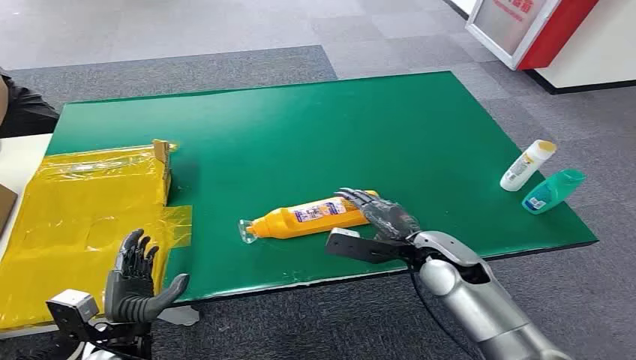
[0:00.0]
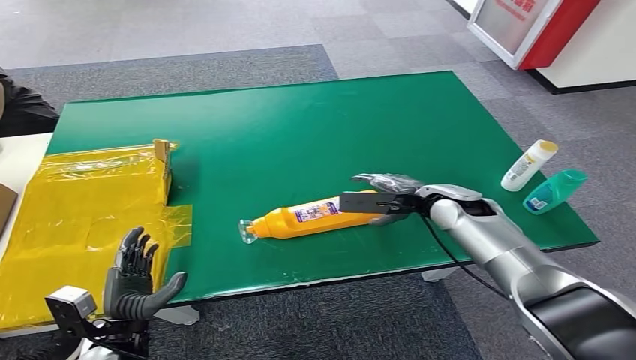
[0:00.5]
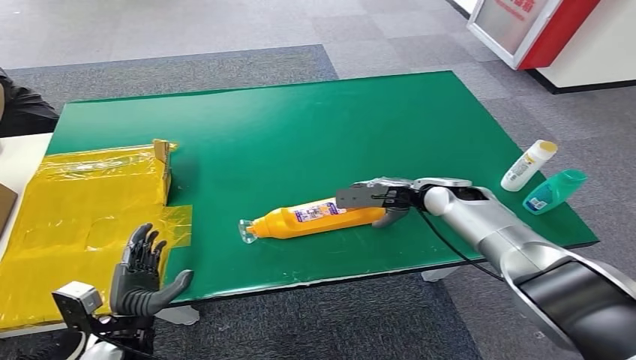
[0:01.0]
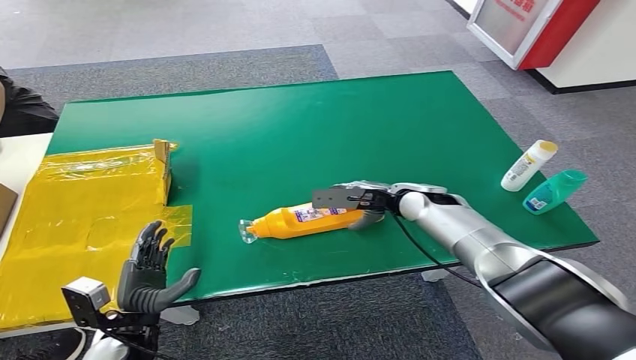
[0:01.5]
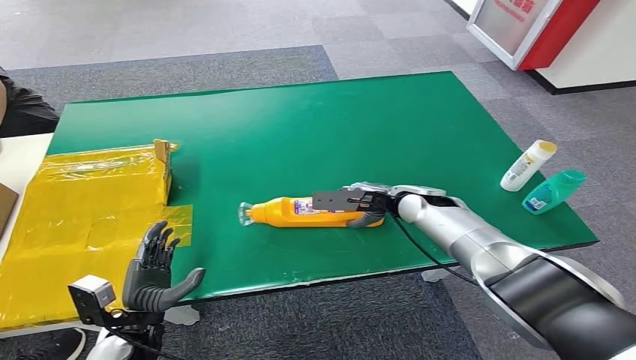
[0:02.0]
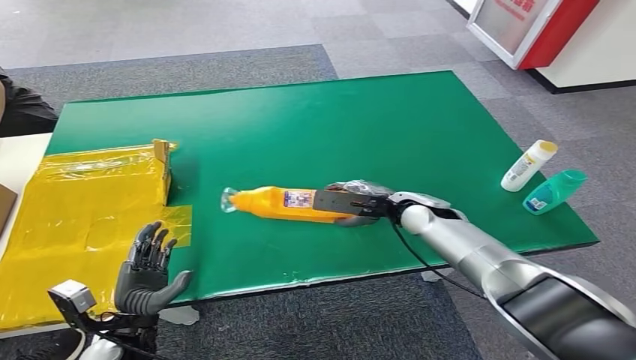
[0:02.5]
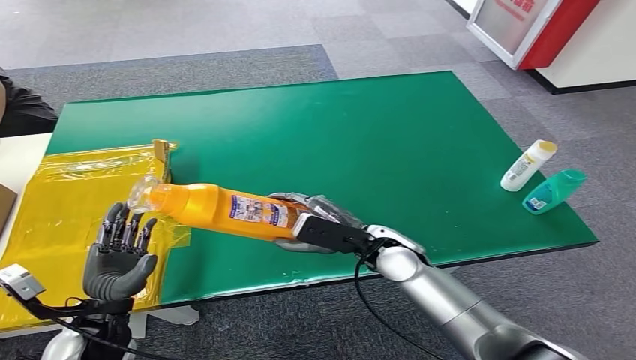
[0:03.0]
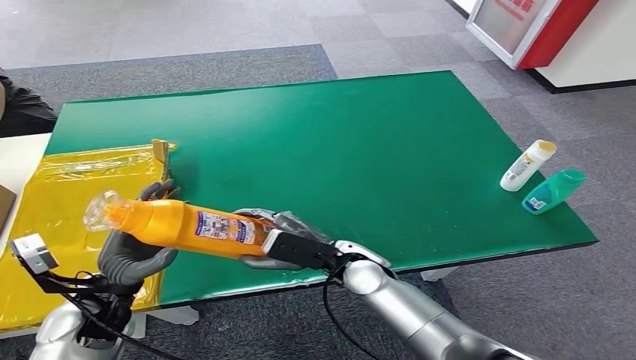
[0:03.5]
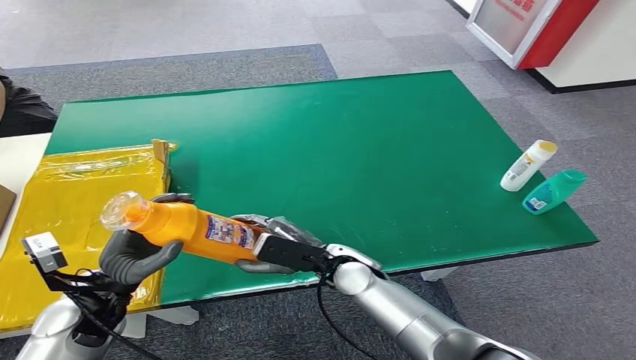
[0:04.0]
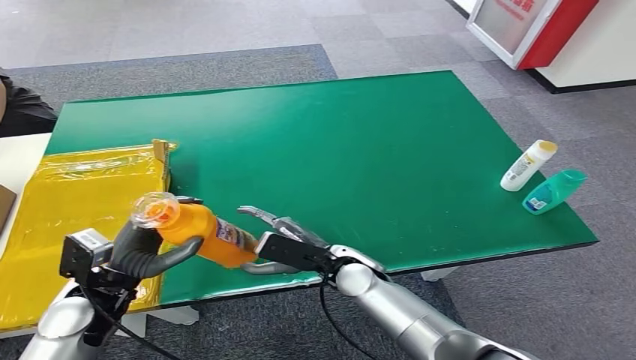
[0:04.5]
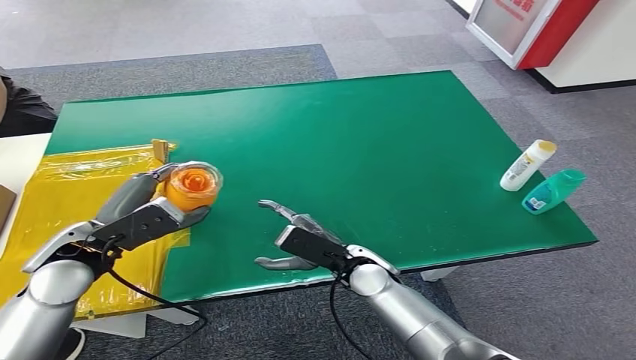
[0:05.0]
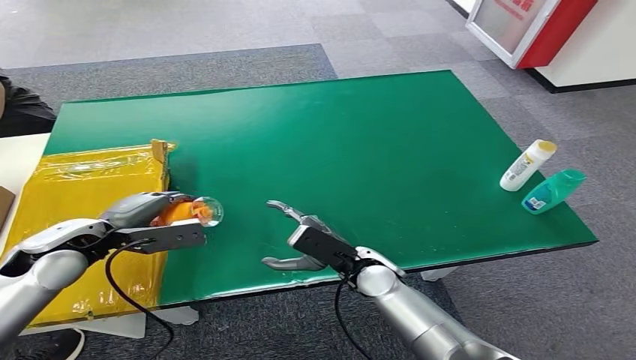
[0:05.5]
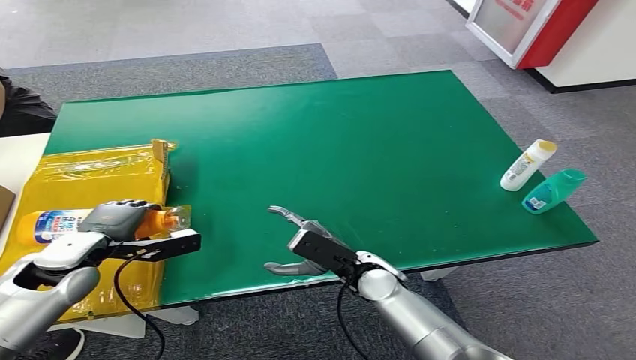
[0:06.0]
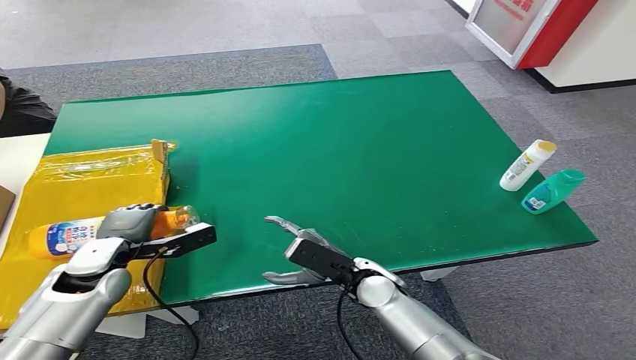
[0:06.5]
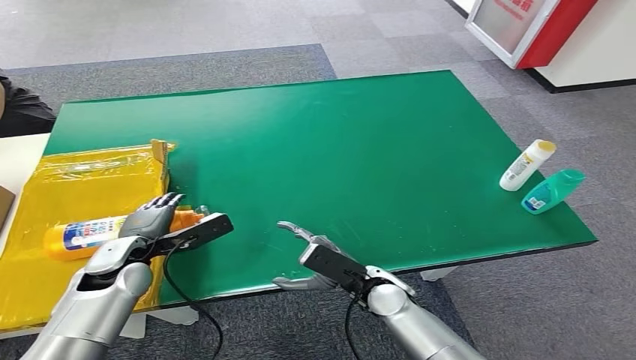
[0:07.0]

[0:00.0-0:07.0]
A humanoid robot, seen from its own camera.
Step, 0:00.0 to 0:02.5: Pick up the bottle from the table.
Step, 0:03.0 to 0:07.0: Turn the bottle to the front side.
0:03.5 to 0:05.0: The left hand is displaced upward and forward by roughly 10 cm.
0:05.0 to 0:07.0: The right hand moves about 5 cm. The left hand travels downward by approximately 10 cm.
